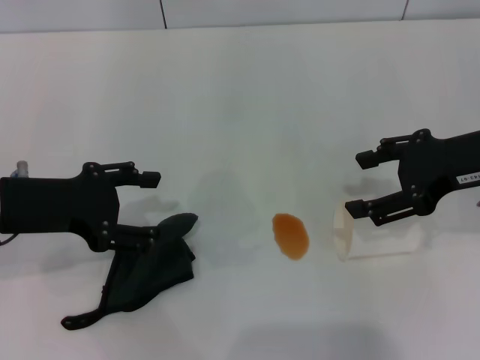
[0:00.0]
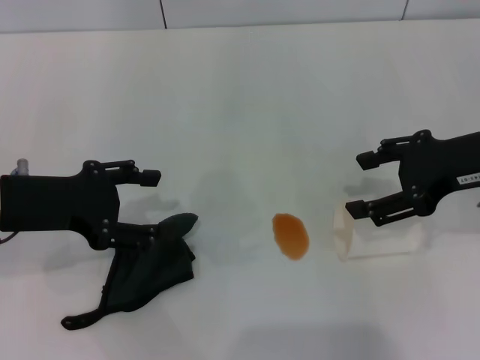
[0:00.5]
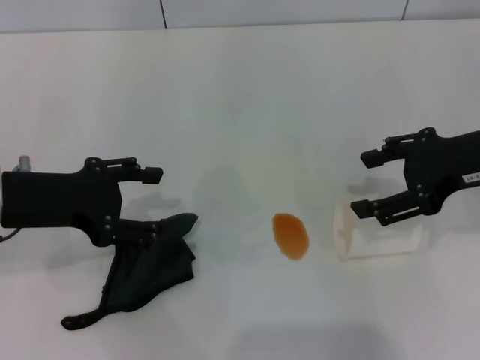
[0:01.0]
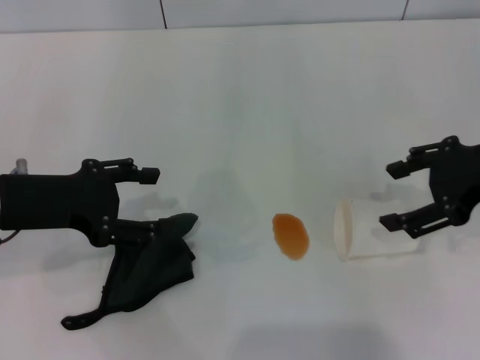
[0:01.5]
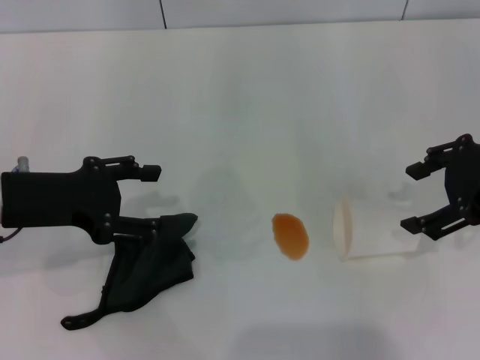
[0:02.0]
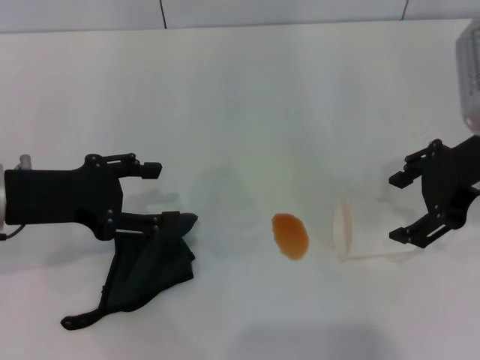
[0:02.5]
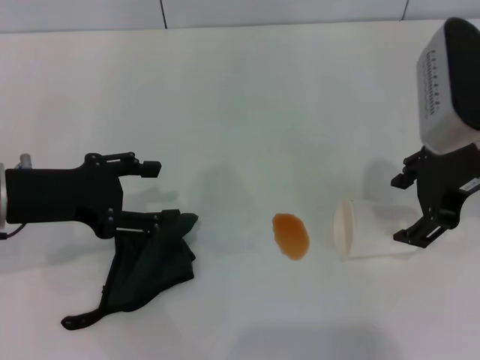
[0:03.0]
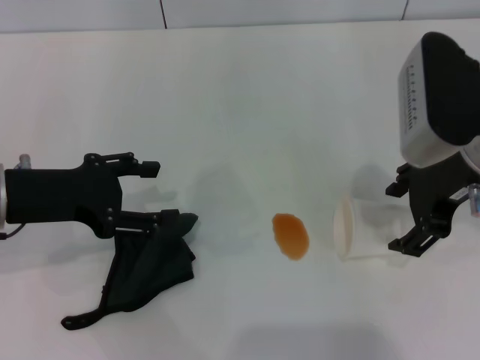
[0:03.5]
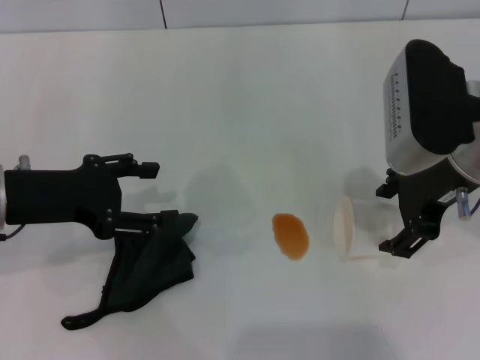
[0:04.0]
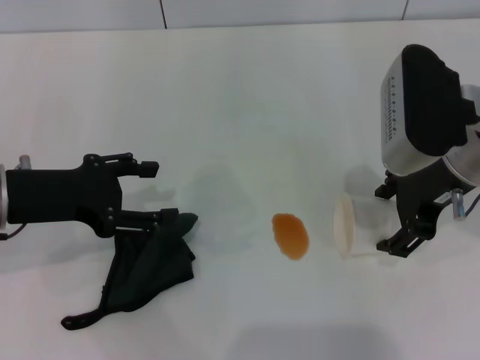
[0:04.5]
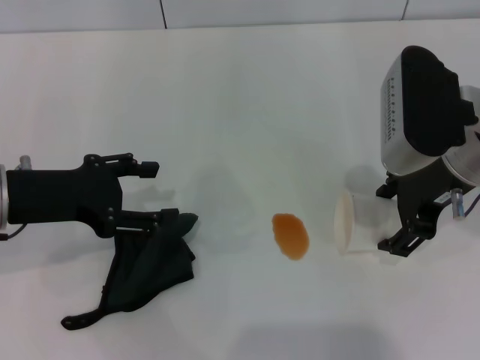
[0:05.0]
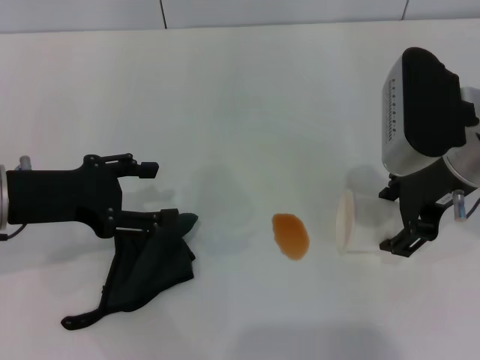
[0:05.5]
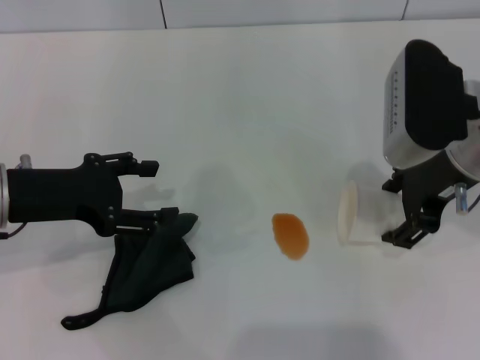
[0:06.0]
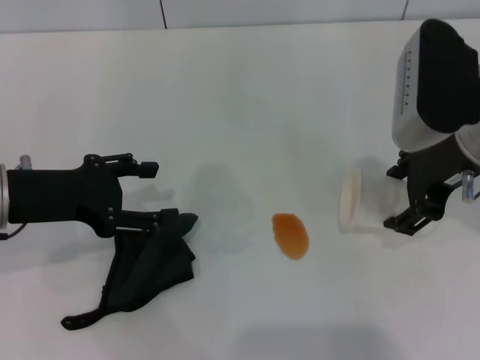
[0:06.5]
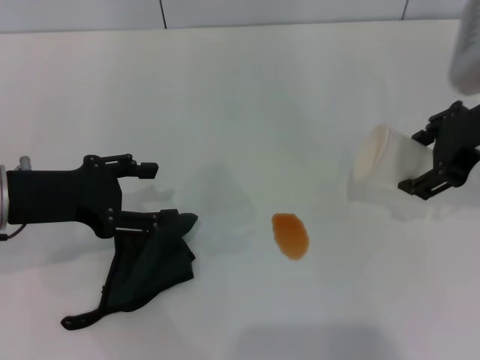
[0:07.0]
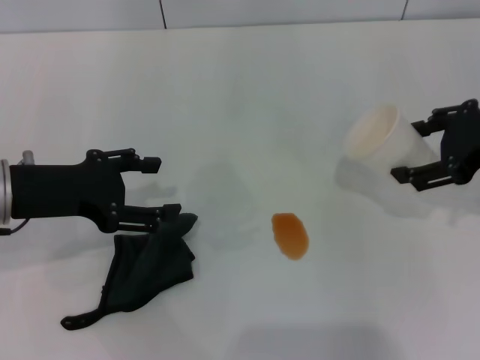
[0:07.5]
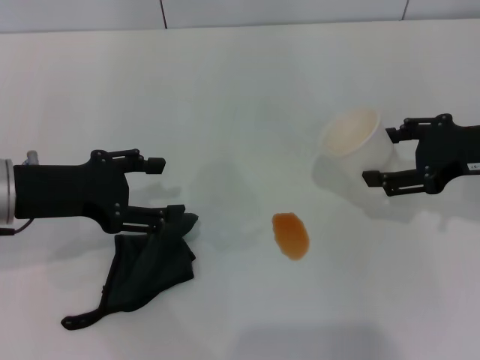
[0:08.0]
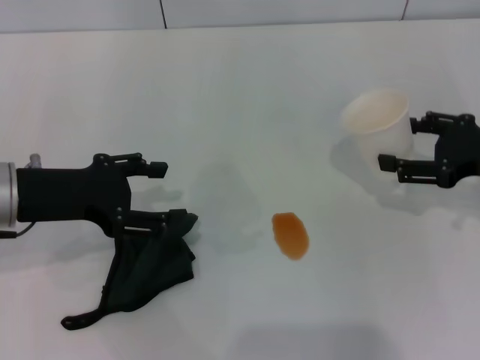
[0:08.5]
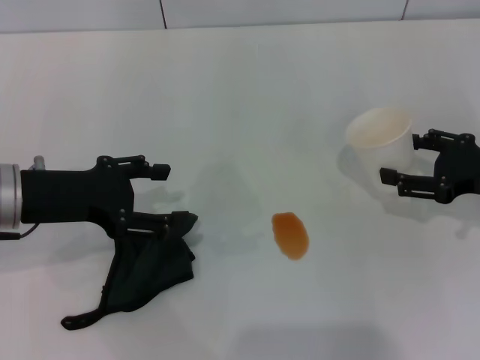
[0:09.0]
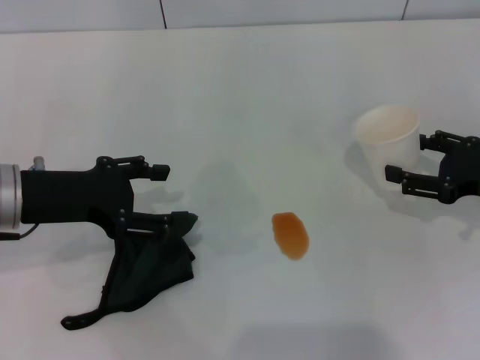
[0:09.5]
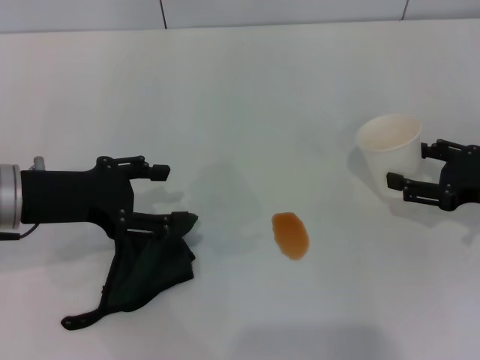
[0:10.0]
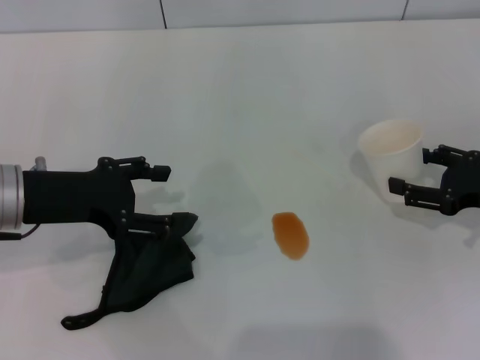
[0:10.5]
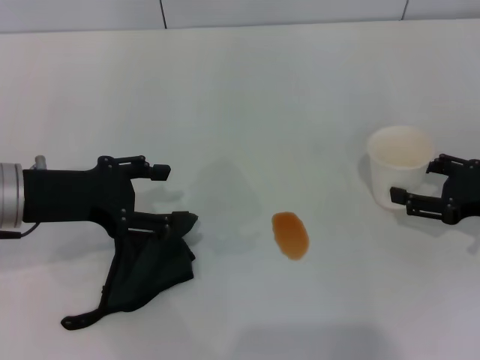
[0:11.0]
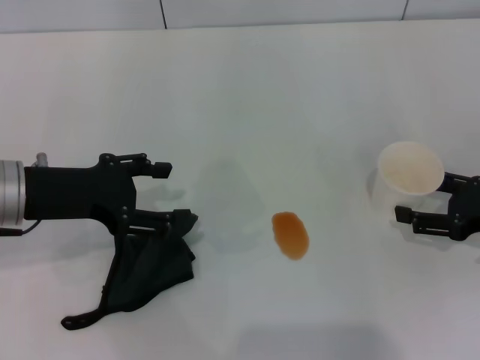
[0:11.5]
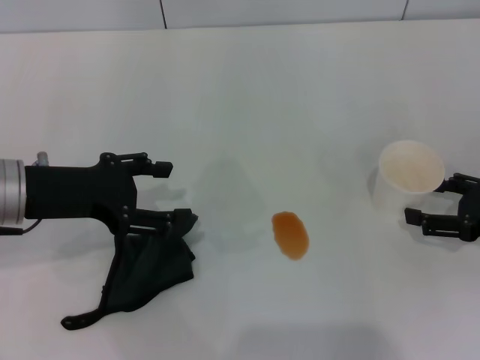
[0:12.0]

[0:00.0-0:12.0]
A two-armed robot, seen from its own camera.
Step, 0:00.0 to 0:06.0: Grasp the paper cup with the right gripper.
0:00.0 to 0:02.0: There are only small adjustments of the grippers.
0:02.0 to 0:04.0: The right gripper is displaced to the left by some 10 cm.
0:04.0 to 0:06.0: The grippers move only a little.
0:06.0 to 0:08.0: The right gripper moves to the right, about 10 cm.
0:08.0 to 0:10.0: The right gripper is displaced downward by roughly 10 cm.
0:10.0 to 0:12.0: There are only small adjustments of the grippers.

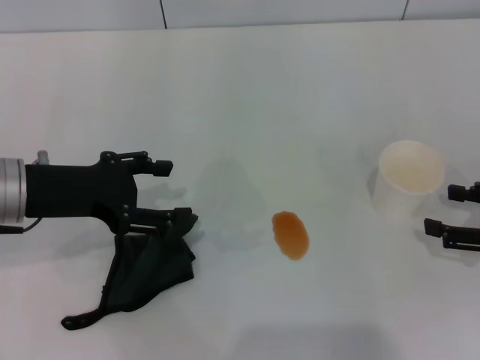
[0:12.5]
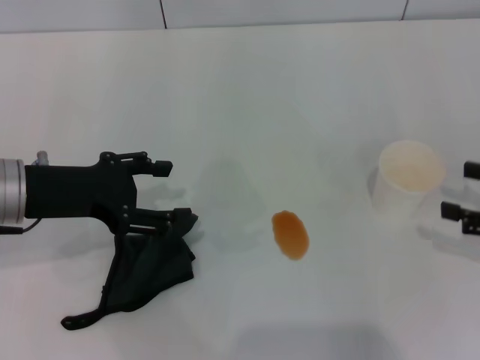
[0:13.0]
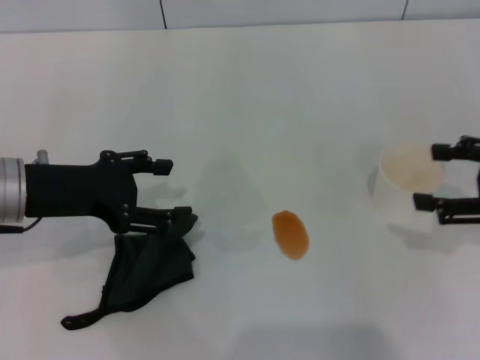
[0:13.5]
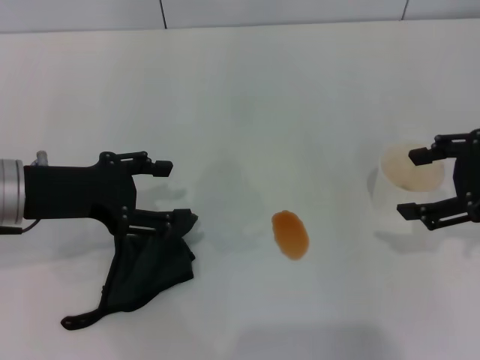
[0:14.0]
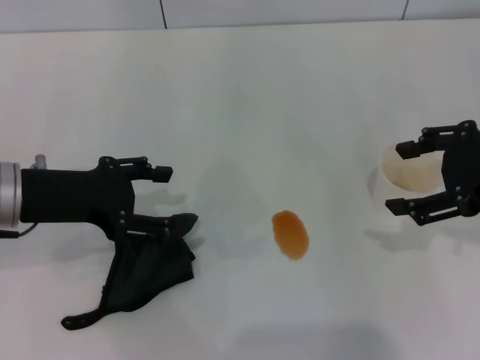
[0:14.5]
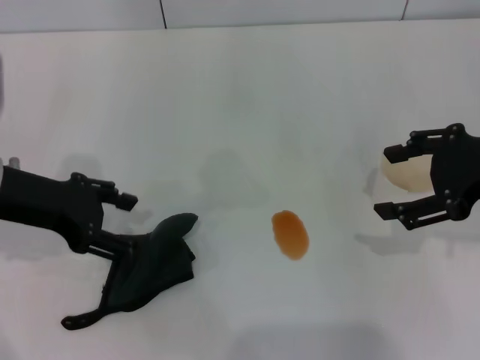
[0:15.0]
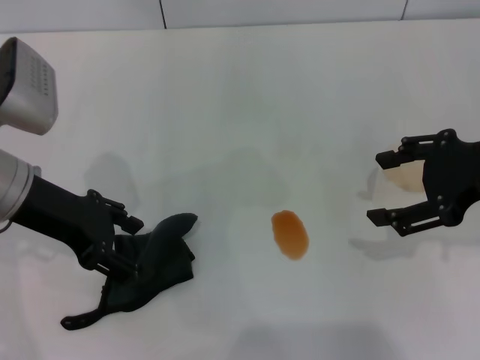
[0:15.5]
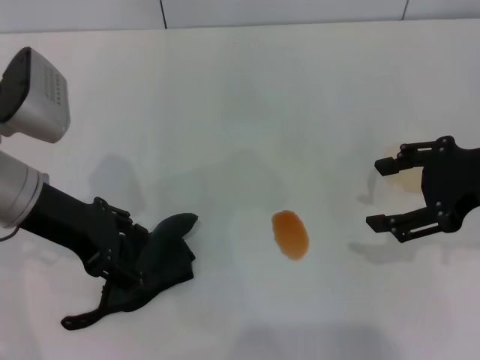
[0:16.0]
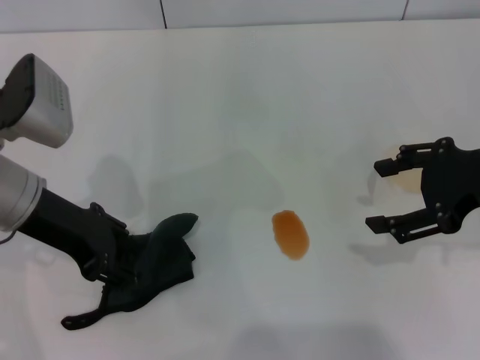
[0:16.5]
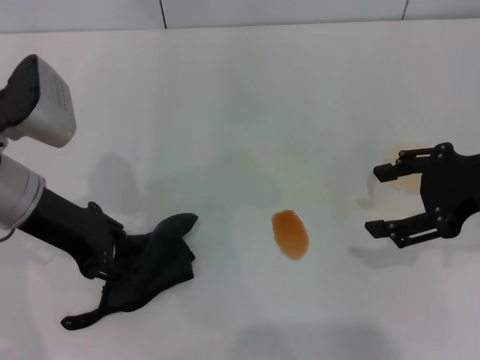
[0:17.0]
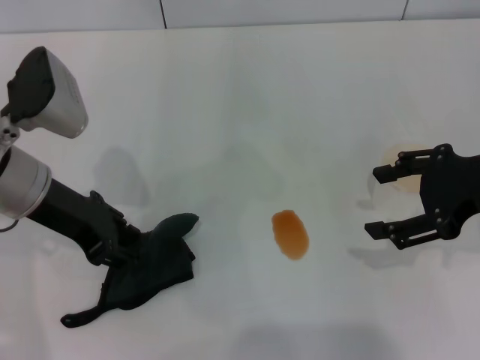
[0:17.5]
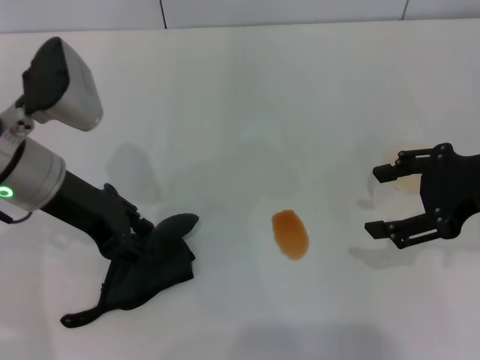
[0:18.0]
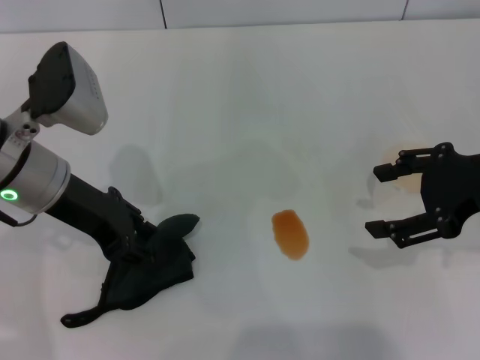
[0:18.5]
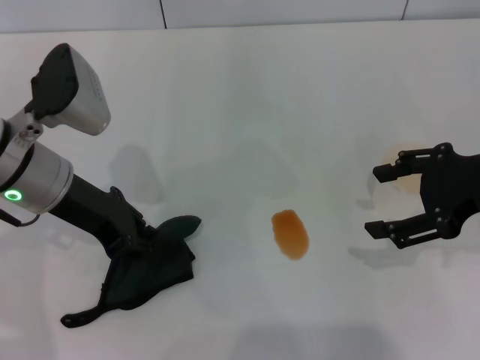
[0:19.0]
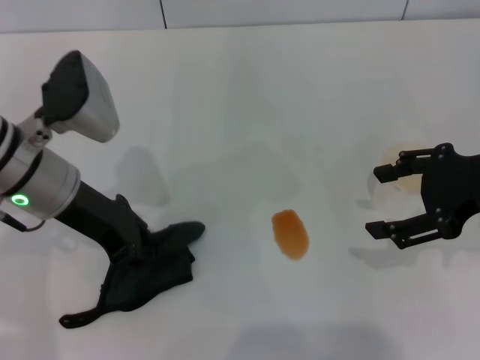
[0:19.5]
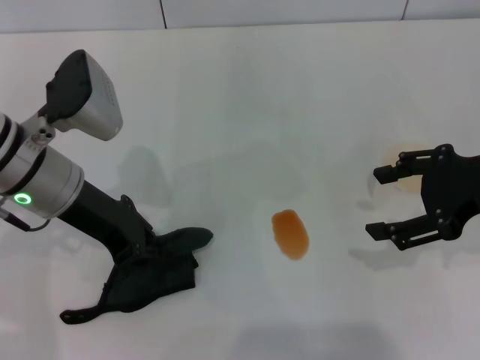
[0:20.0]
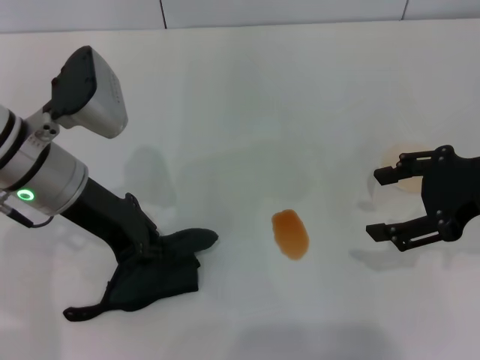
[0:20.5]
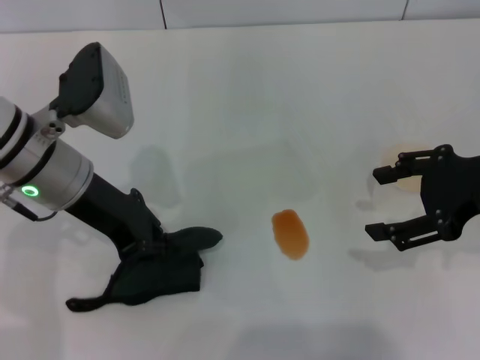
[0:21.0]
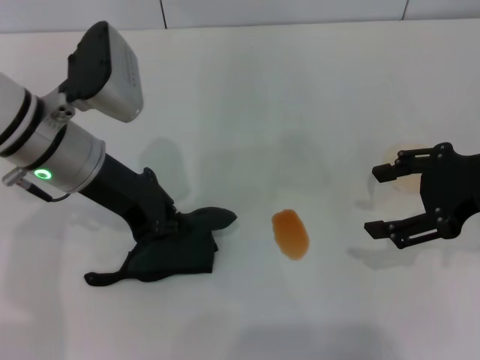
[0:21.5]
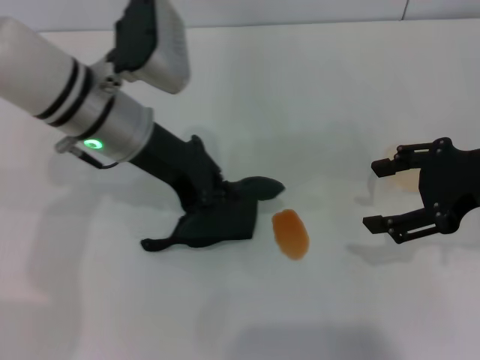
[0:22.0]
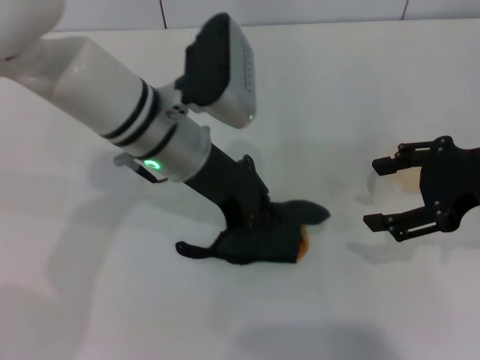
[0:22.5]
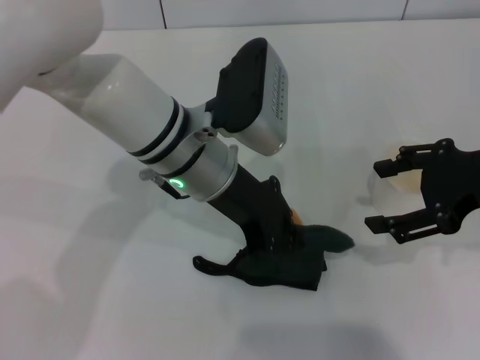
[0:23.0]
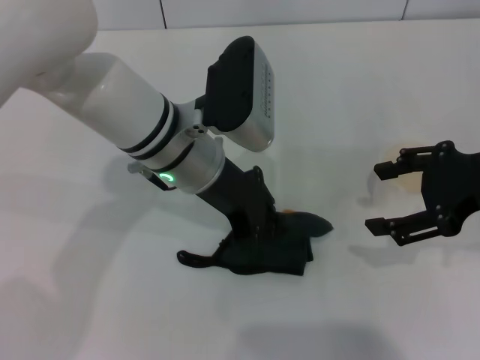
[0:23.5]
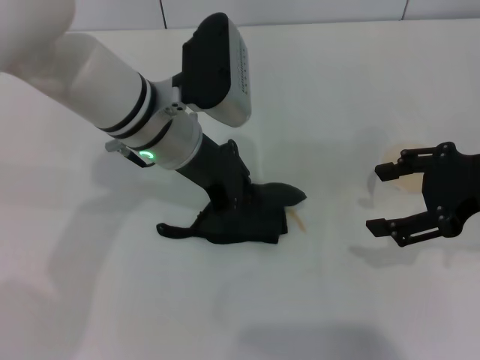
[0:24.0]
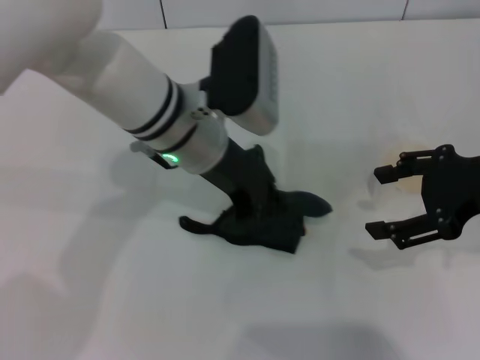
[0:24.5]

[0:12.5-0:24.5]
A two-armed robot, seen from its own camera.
Step, 0:13.0 to 0:20.0: Grasp the rag with the left gripper.
0:12.5 to 0:14.5: The right gripper shifts about 15 cm upward and to the left.
0:16.5 to 0:18.5: The left gripper closes up.
0:18.5 to 0:20.5: The left gripper closes its fingers.
0:20.5 to 0:22.5: The left gripper travels to the right by approximately 10 cm.
0:22.5 to 0:24.5: The grippers stay close to where they were, moving slightly.

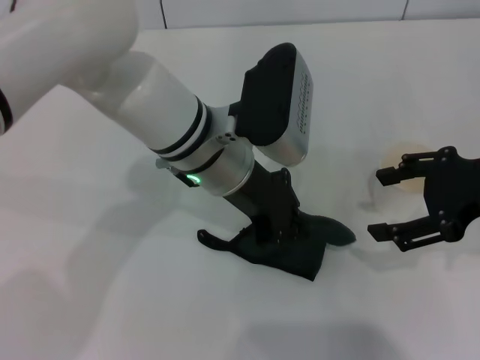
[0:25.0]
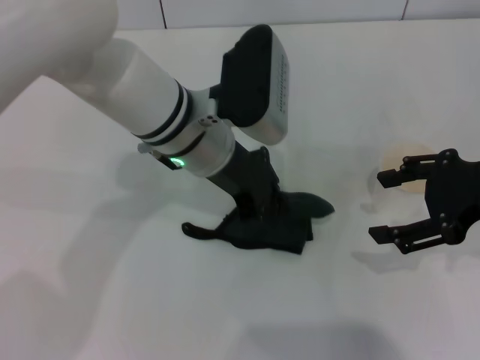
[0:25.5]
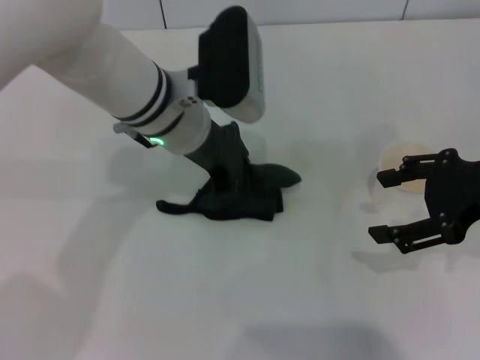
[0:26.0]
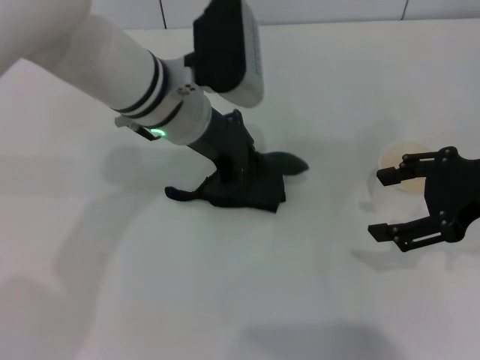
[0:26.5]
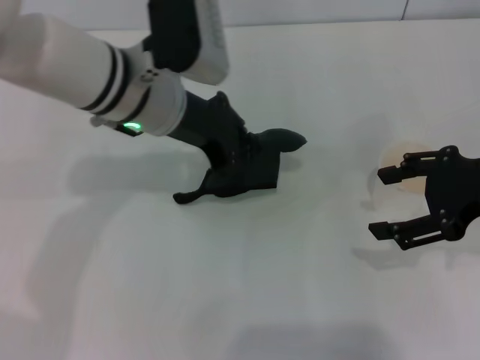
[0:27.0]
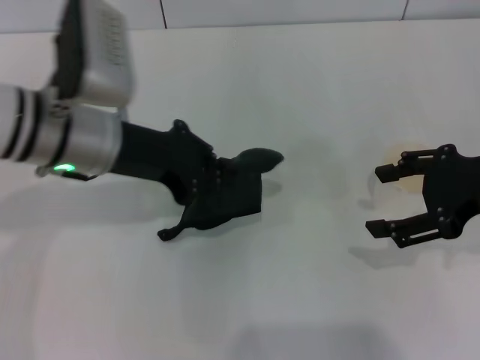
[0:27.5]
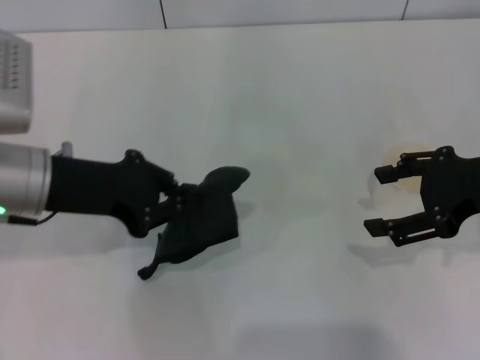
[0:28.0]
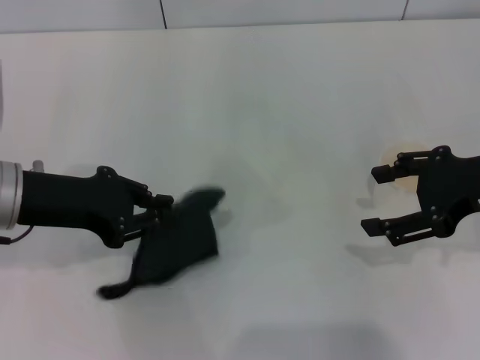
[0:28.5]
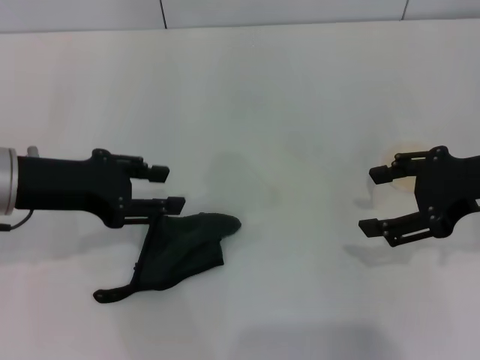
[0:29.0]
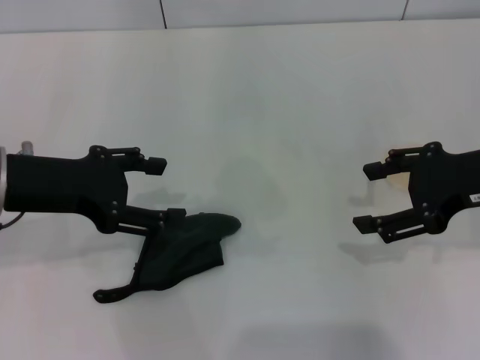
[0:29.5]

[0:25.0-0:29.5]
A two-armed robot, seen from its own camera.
Step, 0:25.0 to 0:27.0: Wipe the stains off the table with the left gripper.
Step, 0:27.5 to 0:29.0: Place the rag on the table with the left gripper.
0:25.0 to 0:27.0: The left gripper shifts some 5 cm to the left.
0:27.0 to 0:29.5: The left gripper shifts roughly 15 cm to the left and backward, and opens.
